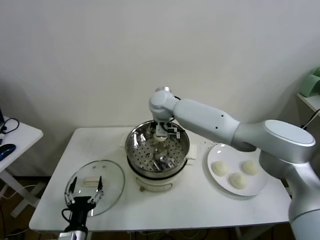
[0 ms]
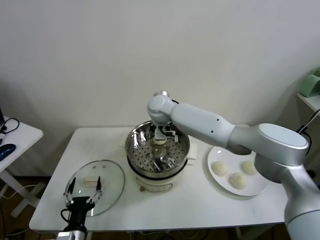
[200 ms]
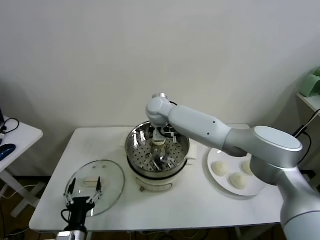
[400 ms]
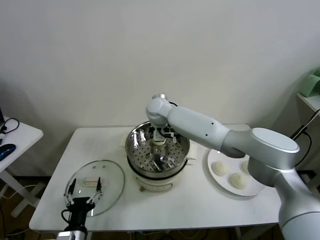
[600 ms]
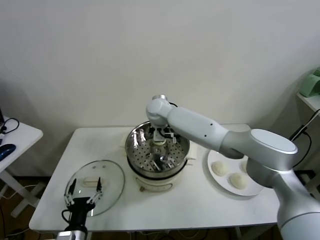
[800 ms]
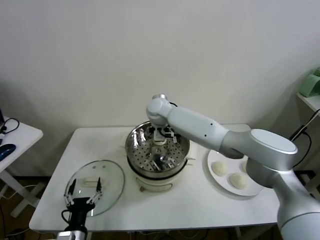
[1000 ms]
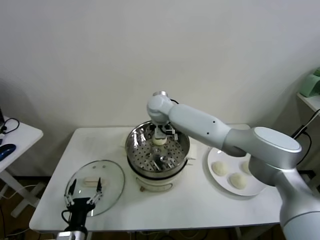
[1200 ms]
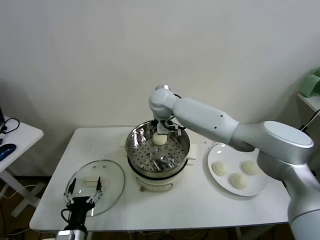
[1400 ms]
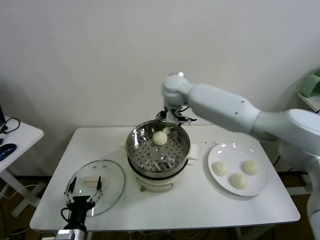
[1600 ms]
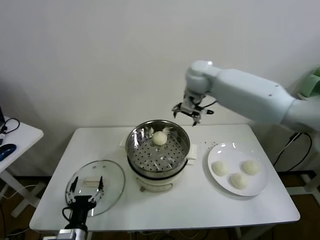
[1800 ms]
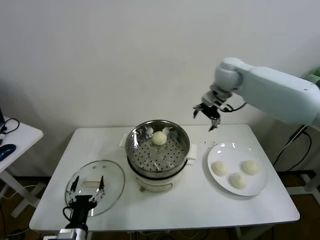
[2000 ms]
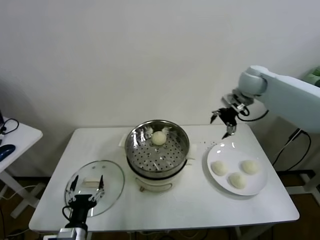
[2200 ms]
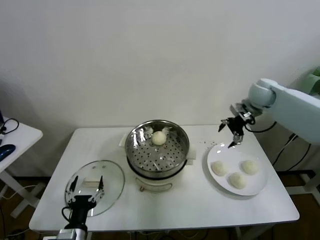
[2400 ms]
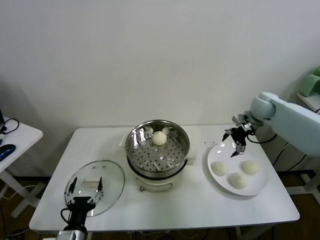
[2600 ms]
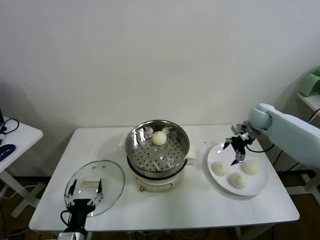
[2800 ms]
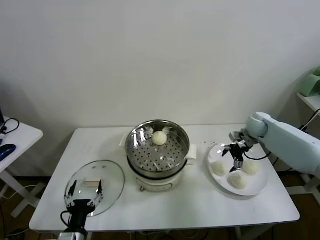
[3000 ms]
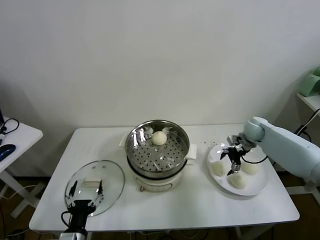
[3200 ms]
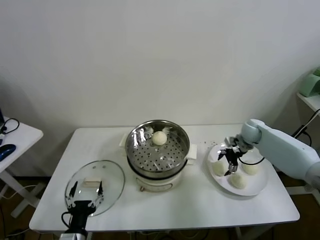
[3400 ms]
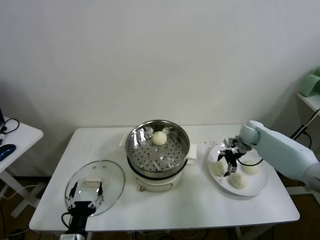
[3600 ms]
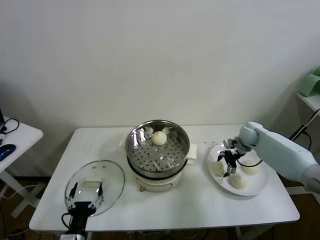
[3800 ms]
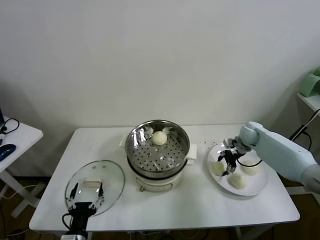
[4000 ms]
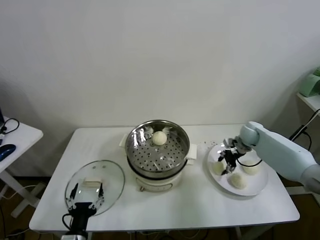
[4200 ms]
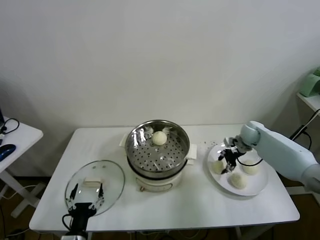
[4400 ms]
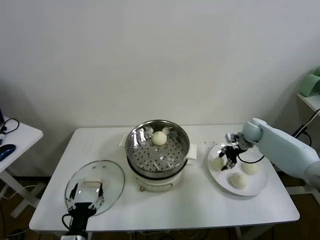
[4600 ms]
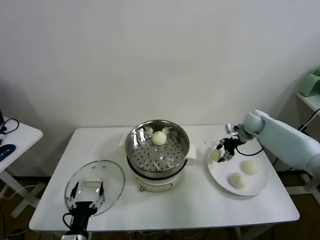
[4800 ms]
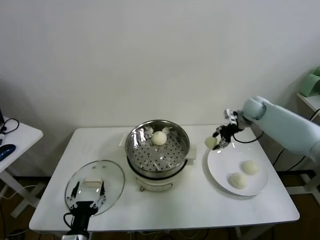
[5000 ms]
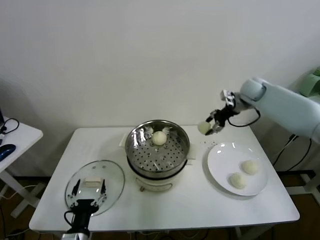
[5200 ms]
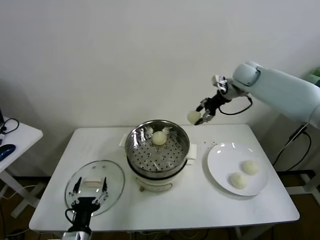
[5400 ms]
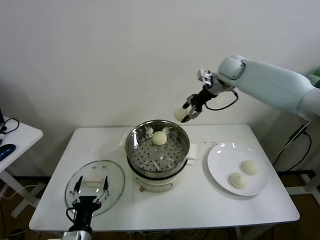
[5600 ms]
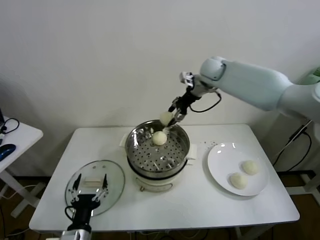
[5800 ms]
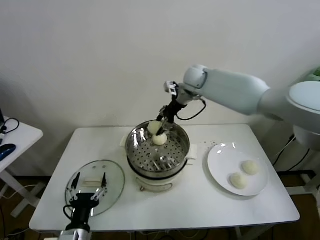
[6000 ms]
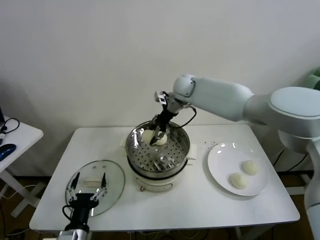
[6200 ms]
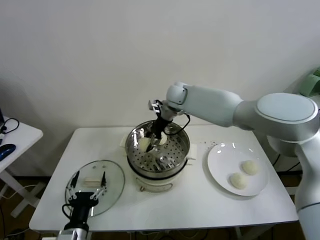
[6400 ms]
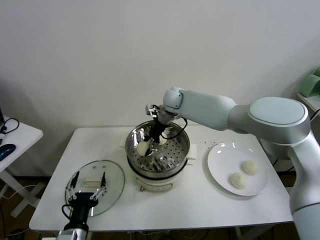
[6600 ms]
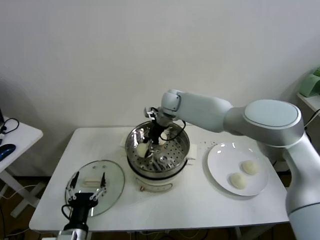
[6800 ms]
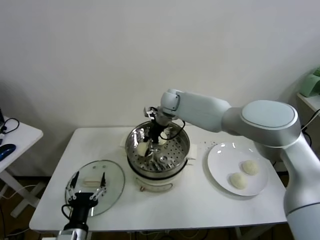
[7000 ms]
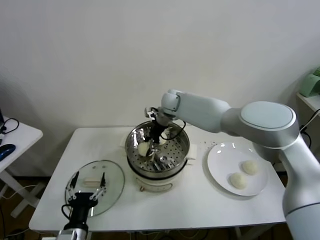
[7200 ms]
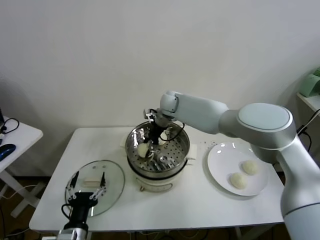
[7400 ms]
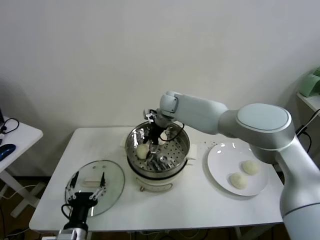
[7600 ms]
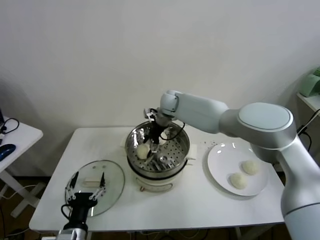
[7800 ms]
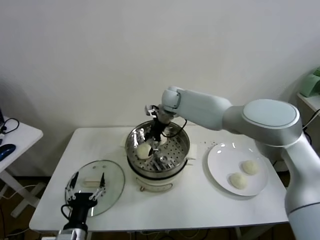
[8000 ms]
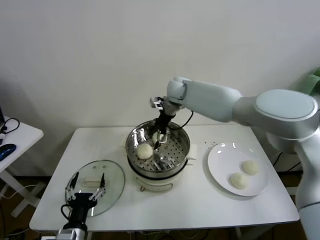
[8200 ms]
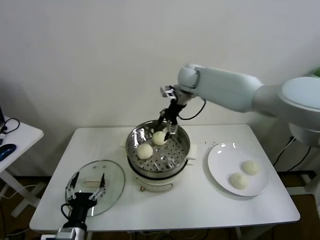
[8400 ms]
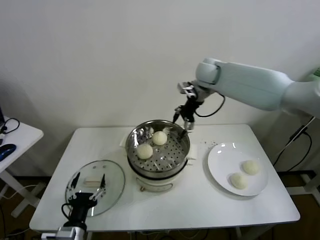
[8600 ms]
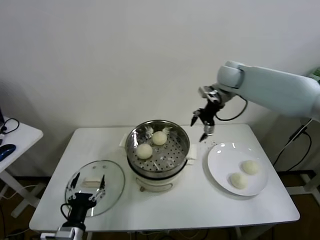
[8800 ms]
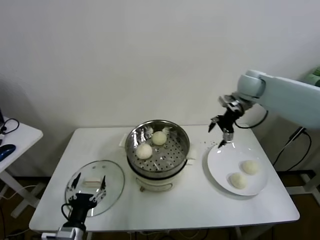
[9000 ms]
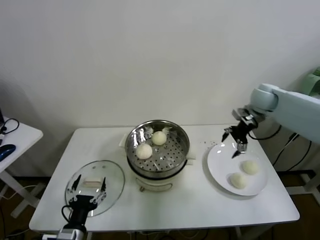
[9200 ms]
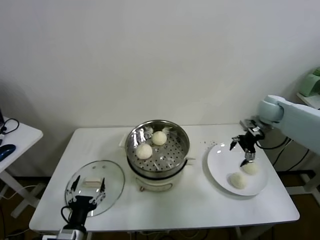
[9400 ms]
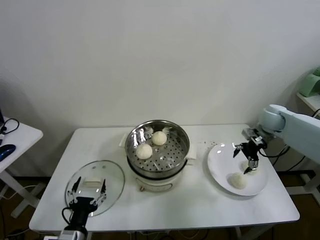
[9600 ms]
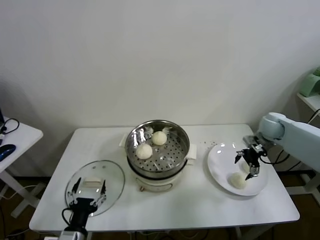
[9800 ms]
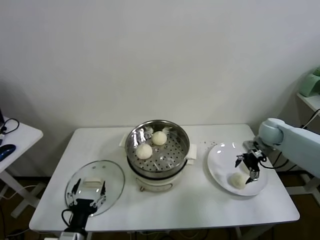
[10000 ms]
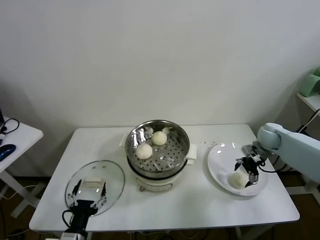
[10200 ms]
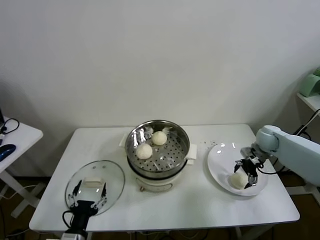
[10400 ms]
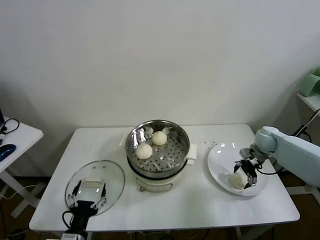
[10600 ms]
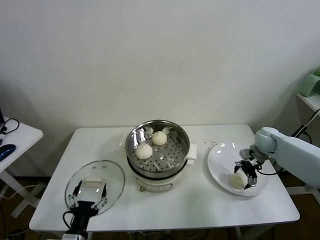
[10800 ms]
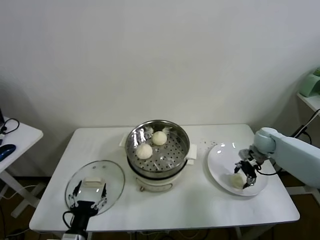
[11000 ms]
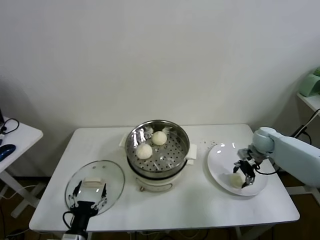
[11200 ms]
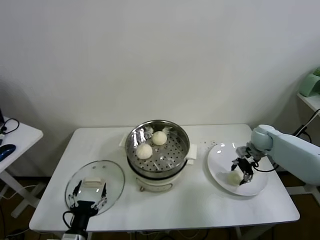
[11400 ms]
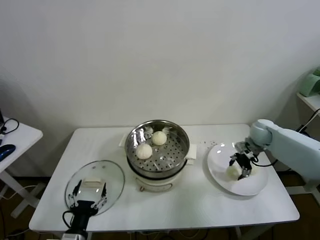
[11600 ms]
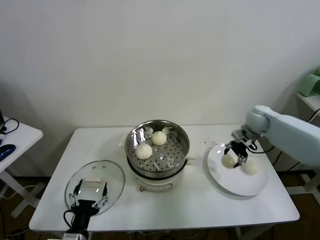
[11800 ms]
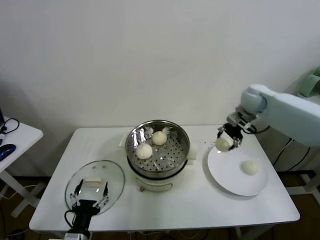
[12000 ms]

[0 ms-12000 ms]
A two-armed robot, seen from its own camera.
Task of the whole recording: take steamed baozi put them in steamer.
Step, 1200 ms to 3800 ms: Grasp the baozi in the plate with right gripper.
Step, 4000 ms to 7800 ms: Place the baozi on the steamer with right gripper.
Step, 8000 ms to 10800 ms: Grasp the baozi in the plate with right gripper.
0 ms to 1600 ms: The right gripper moves upward and to the right, some 10 cm, and opens.
1600 ms to 3000 ms: The right gripper goes about 35 cm to the right and downward.
3000 ms to 4400 ms: The right gripper closes its fingers.
4400 ms to 6000 ms: The right gripper moves to the left and upward, some 35 cm.
6000 ms to 7600 ms: The right gripper goes roughly 10 cm downward and to the left, and opens.
7600 ms to 9000 ms: The right gripper heads to the right, covering about 30 cm.
9000 ms to 10400 ms: The right gripper shifts approximately 20 cm downward and to the right.
10400 ms to 12000 ms: The right gripper is displaced upward and to the left by some 20 cm, and closes.

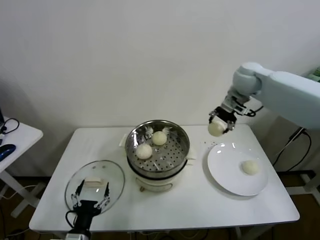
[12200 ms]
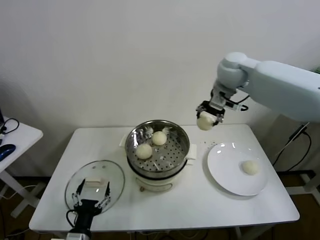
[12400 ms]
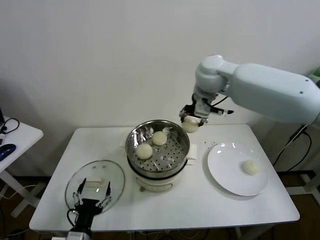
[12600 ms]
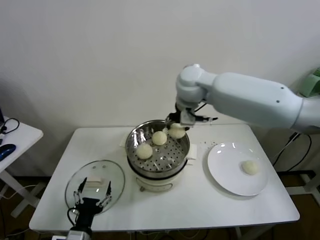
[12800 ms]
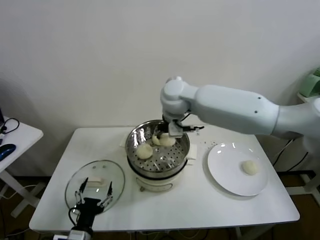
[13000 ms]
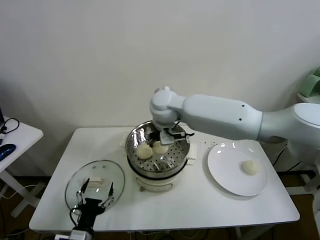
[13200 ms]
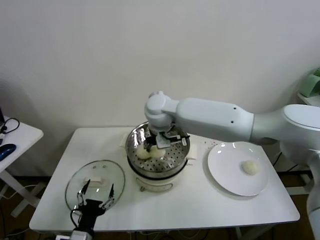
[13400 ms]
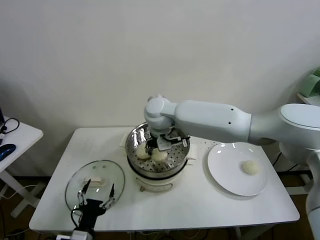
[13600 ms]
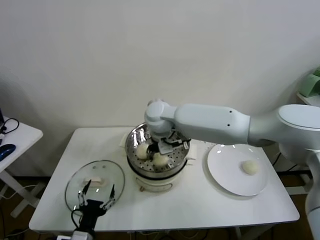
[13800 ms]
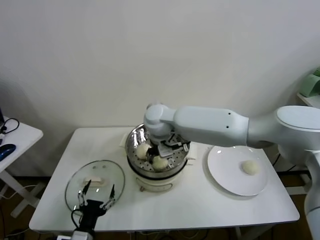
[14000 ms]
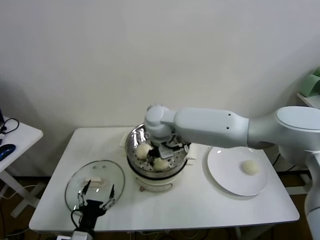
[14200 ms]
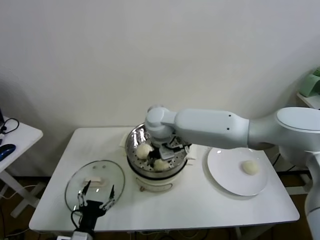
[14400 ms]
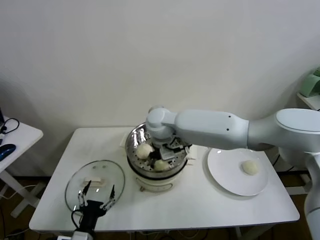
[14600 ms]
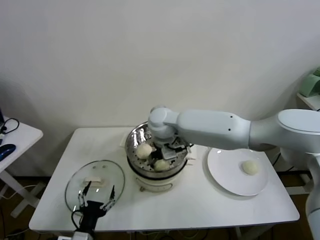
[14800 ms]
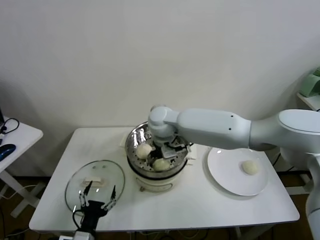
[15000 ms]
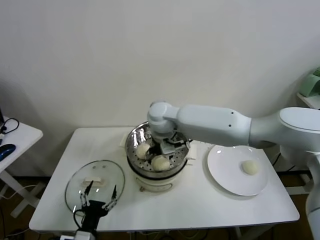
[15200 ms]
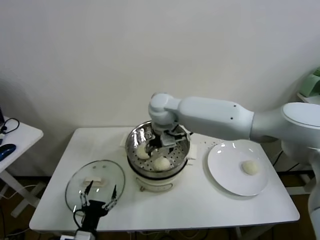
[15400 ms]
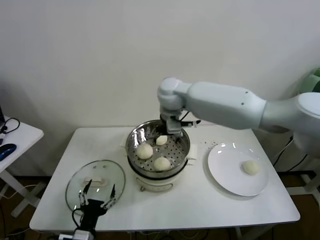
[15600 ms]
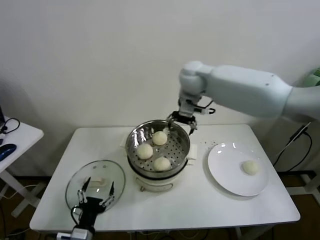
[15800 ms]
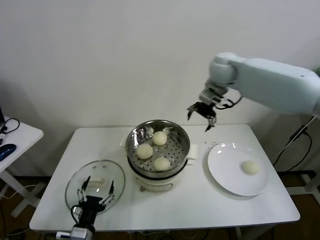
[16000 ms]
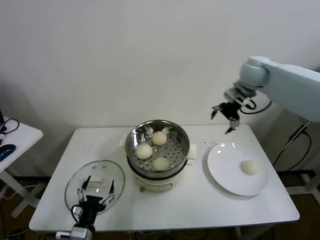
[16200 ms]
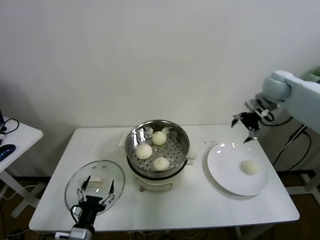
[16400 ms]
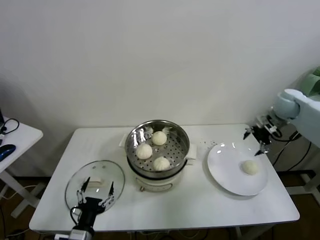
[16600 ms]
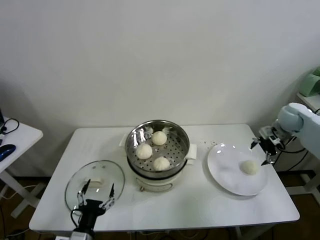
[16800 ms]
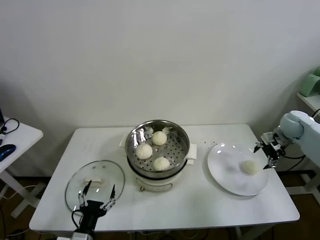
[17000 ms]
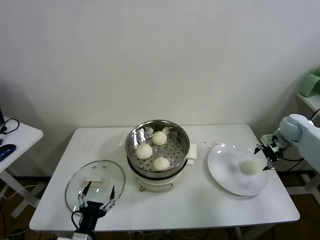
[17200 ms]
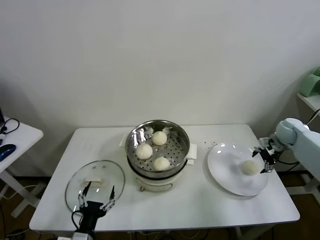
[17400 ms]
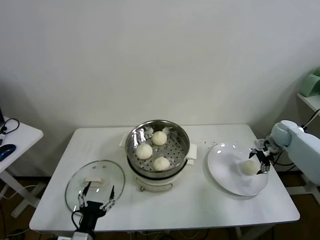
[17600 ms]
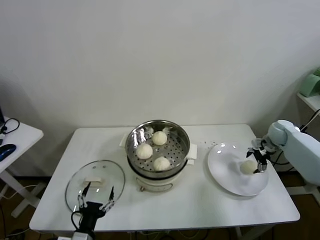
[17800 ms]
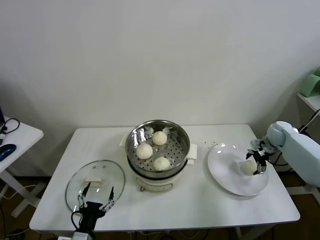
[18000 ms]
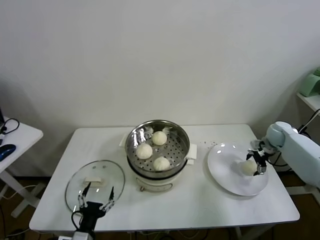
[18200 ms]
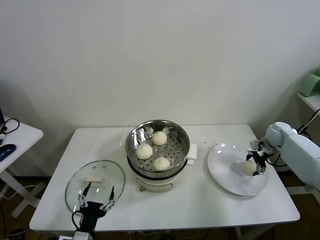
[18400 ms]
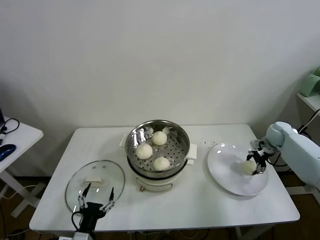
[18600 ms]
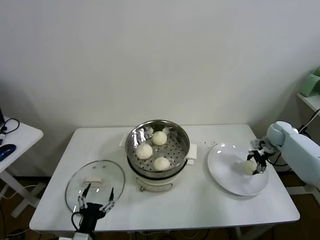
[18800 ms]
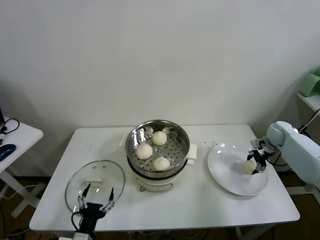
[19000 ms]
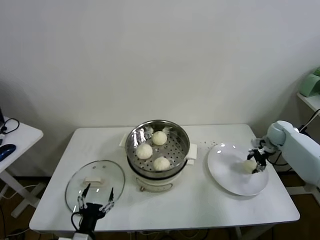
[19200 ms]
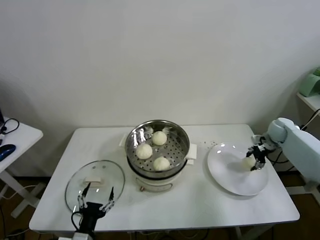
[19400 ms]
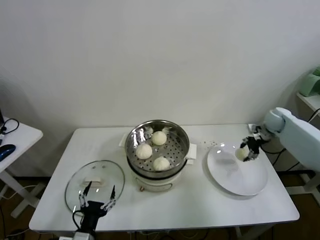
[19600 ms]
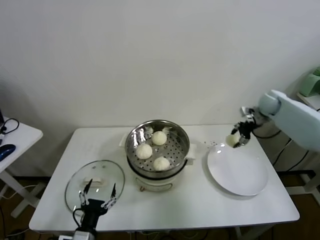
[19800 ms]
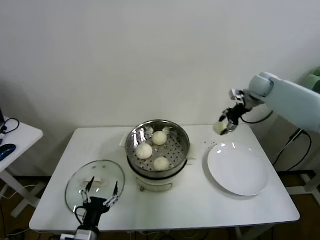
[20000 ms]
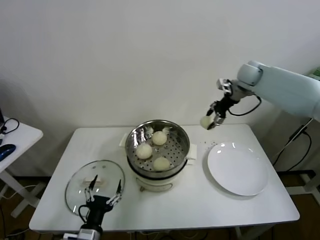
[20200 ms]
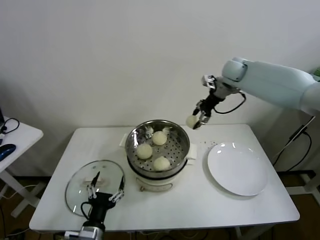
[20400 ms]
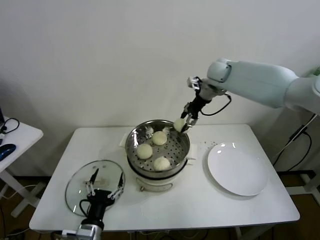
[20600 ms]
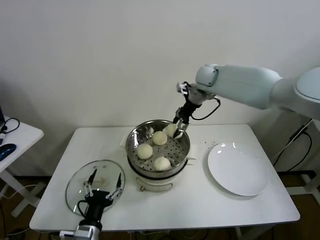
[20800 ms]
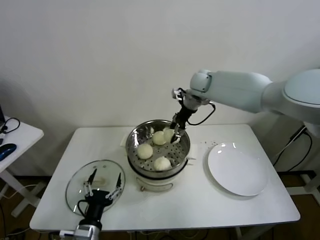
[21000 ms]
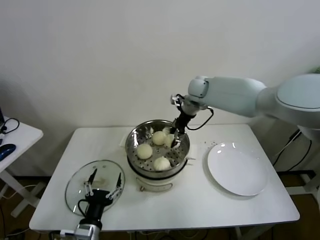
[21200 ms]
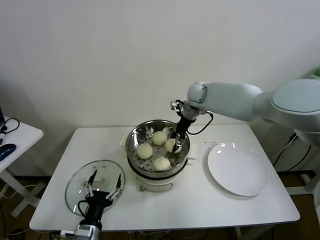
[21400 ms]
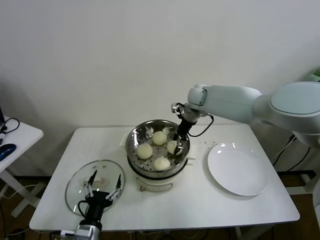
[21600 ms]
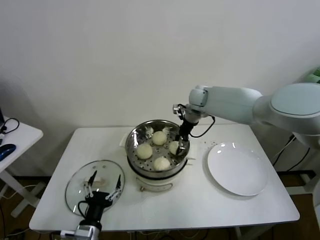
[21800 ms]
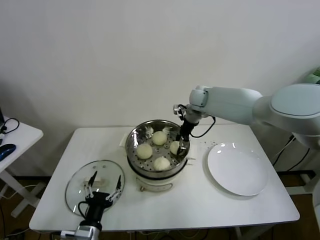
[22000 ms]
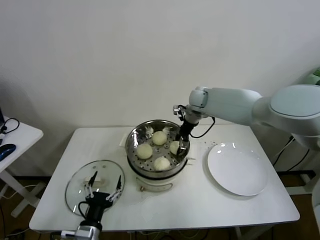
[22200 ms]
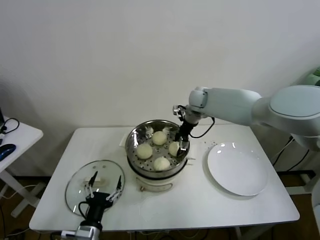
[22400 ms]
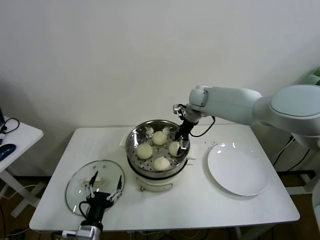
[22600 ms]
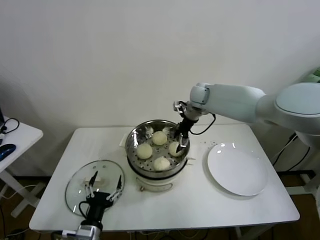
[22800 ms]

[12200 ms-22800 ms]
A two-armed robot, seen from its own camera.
Task of the whole recording: take steamed baozi put them in steamer.
Step, 12200 ms to 15000 ms: Place the baozi on the steamer with right gripper.
Step, 15200 ms to 18400 ms: Grasp the baozi in the plate with right gripper.
Step, 18800 ms to 22400 ms: Place the baozi on the steamer with right gripper.
12200 ms to 13800 ms: The right gripper heads to the left, covering about 30 cm.
13800 ms to 15200 ms: The right gripper opens up.
15200 ms to 16800 ms: The right gripper heads to the right, covering about 50 cm.
16800 ms to 18200 ms: The right gripper shifts approximately 10 cm downward.
18200 ms to 19800 ms: The right gripper travels upward by roughly 10 cm, and closes.
19800 ms to 21200 ms: The right gripper is displaced to the left by approximately 30 cm.
21200 ms to 22800 ms: The right gripper opens its fingers.
